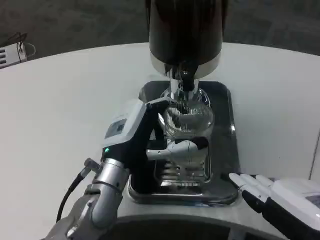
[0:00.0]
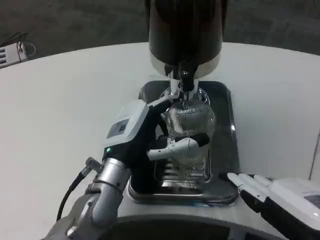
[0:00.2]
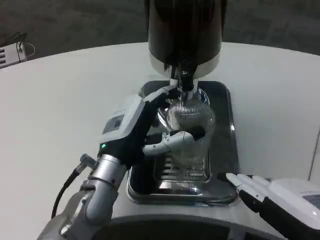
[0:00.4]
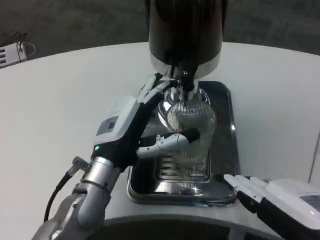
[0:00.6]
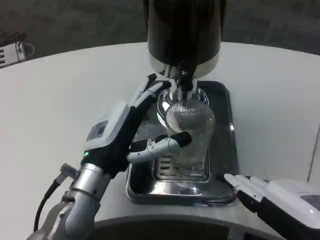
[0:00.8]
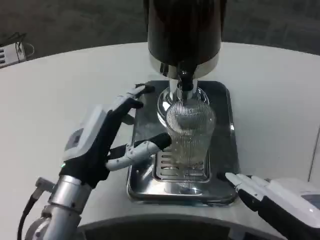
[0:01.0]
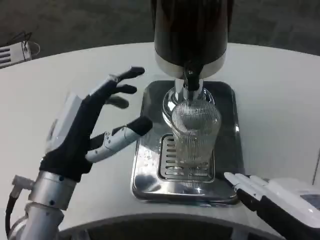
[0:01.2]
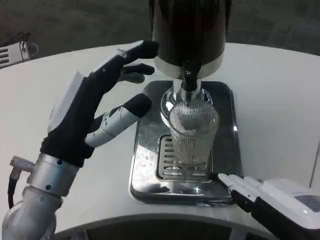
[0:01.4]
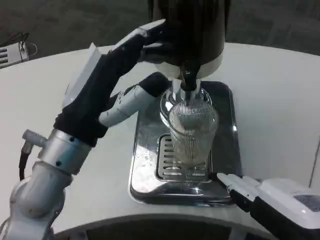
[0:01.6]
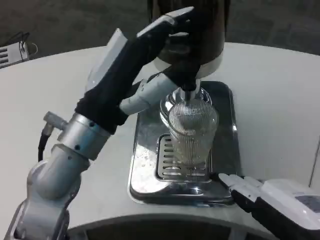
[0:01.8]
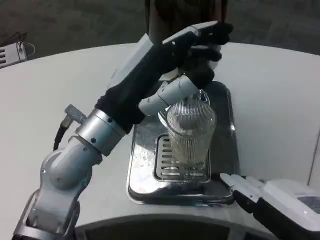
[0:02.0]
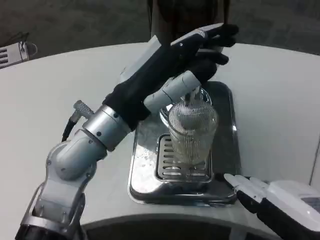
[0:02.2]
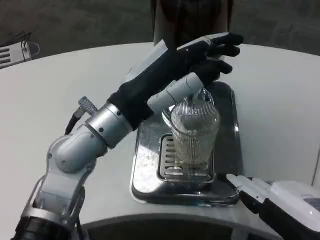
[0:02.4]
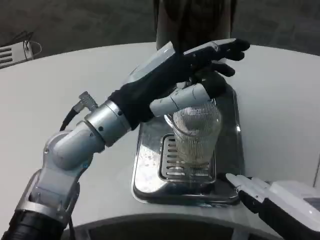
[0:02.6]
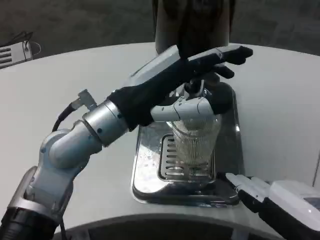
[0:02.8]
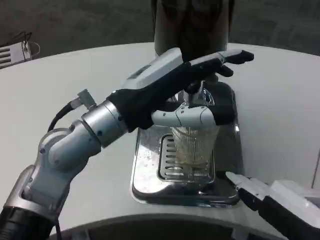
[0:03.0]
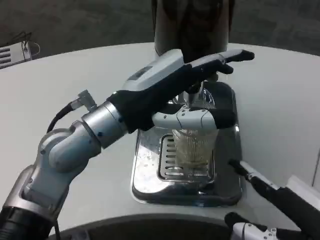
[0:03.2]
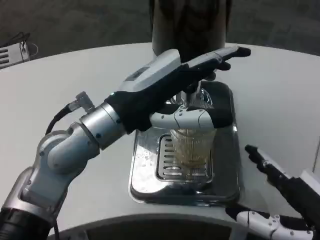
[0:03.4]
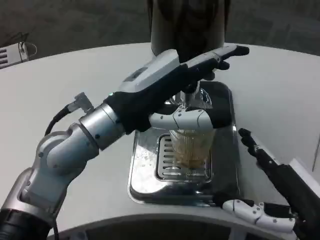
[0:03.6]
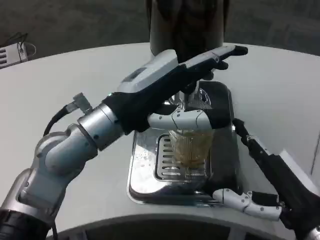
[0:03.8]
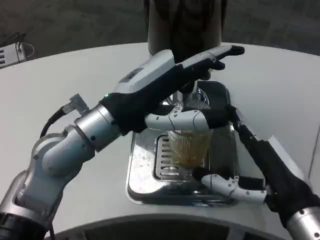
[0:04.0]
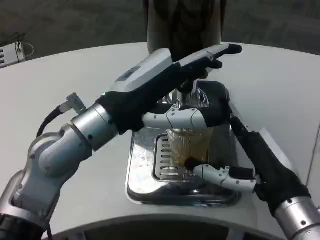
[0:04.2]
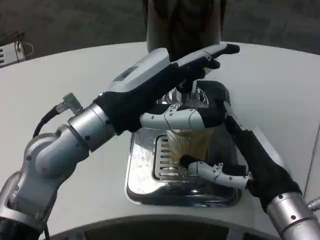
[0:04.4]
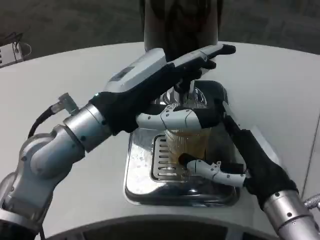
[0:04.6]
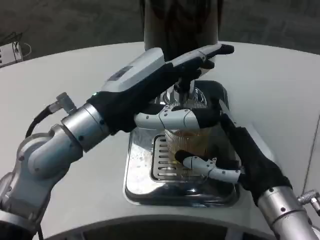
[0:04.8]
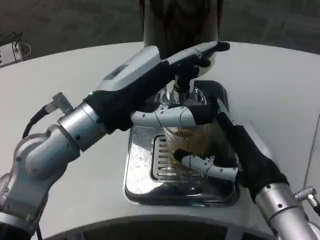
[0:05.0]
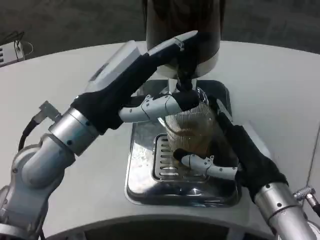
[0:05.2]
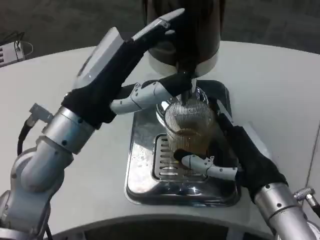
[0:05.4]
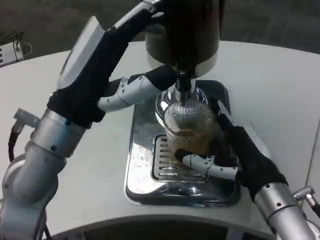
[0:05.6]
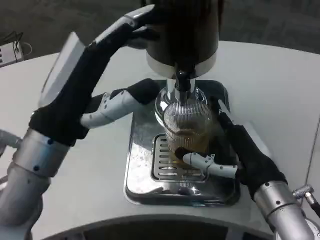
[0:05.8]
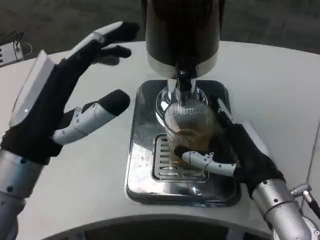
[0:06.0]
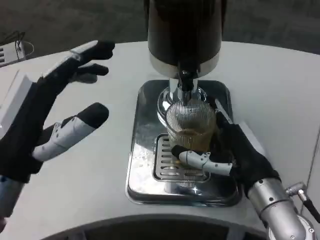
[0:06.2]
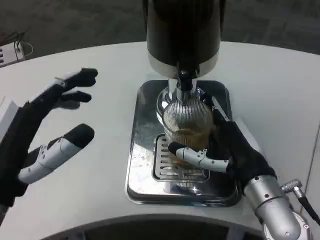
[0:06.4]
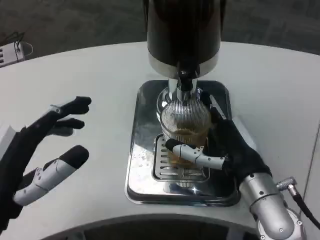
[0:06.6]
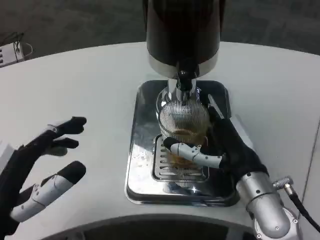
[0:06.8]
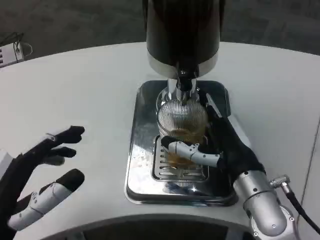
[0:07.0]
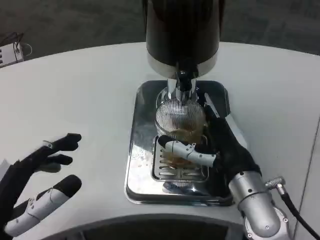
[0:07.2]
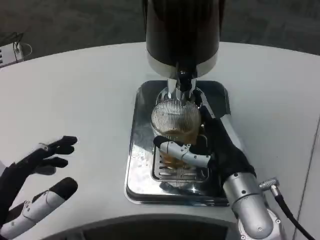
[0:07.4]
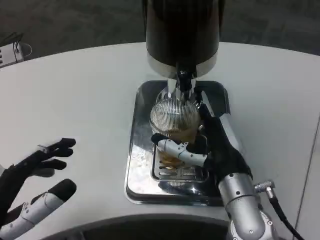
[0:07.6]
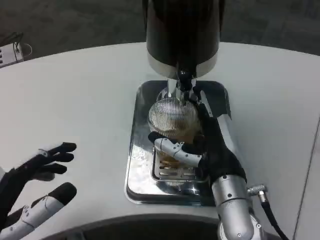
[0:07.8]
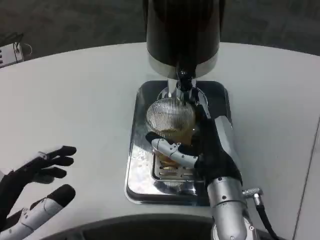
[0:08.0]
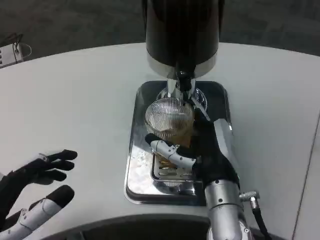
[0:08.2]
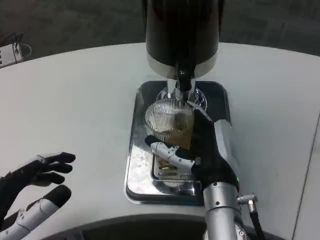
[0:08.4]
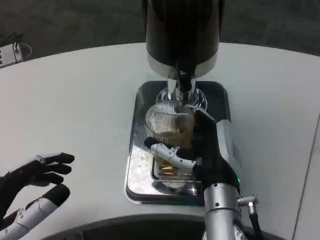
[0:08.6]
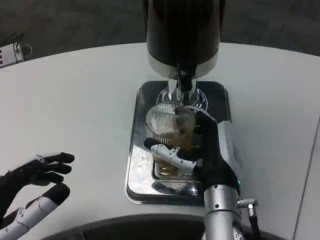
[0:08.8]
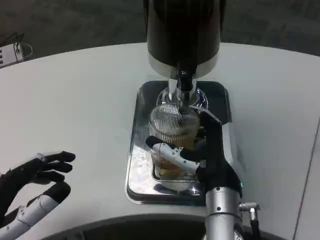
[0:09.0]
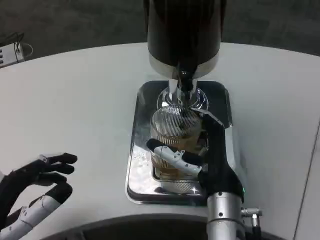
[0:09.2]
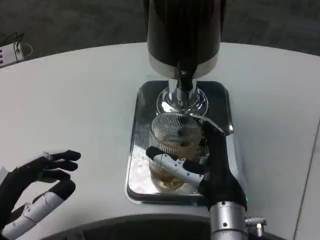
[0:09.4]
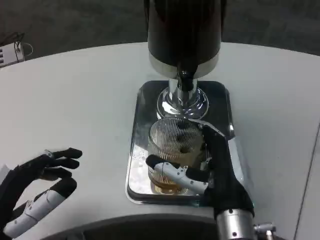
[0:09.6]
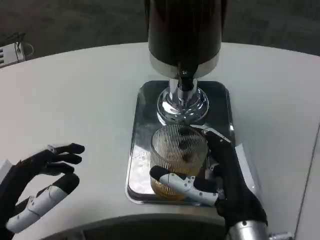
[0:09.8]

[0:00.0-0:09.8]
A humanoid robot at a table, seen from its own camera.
Task of the whole recording: Grasp the cup under the faucet to collect the drink, then remove the cup.
0:00.0 to 0:01.4: The left hand travels backward, upward and to the left by approximately 10 cm.
0:01.4 to 0:02.8: The left hand is displaced upward by approximately 5 cm.
0:02.8 to 0:04.2: The right hand goes approximately 10 cm forward.
0:05.6 to 0:07.0: The left hand travels backward, downward and to the left by some 15 cm.
0:07.0 to 0:08.4: The right hand moves to the left, some 5 cm.
0:08.4 to 0:09.8: The right hand is displaced backward by approximately 5 cm.

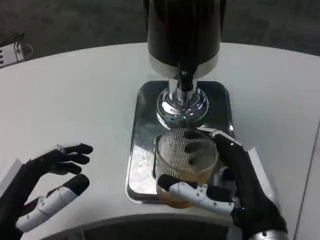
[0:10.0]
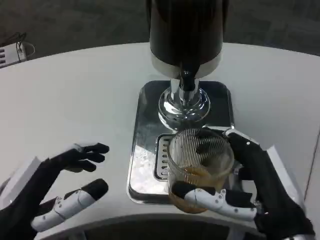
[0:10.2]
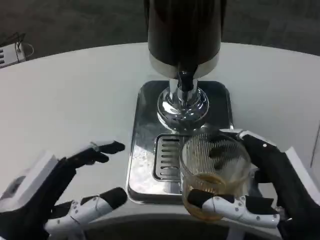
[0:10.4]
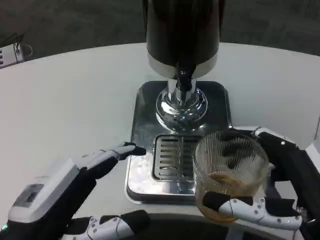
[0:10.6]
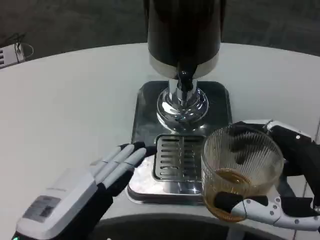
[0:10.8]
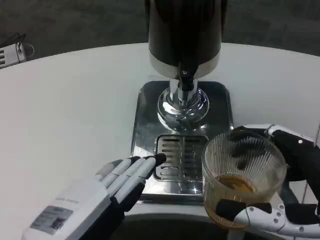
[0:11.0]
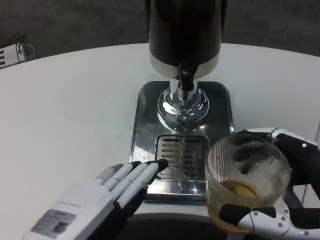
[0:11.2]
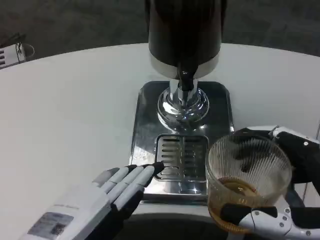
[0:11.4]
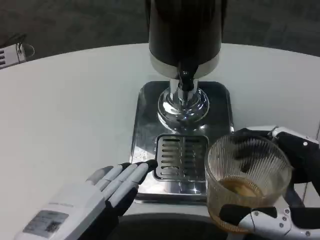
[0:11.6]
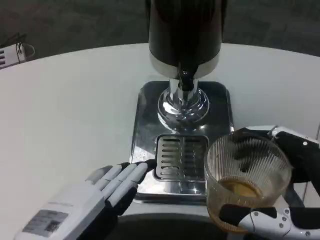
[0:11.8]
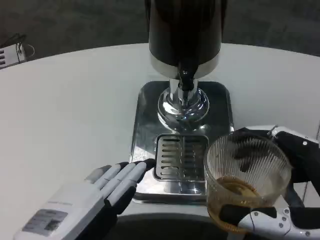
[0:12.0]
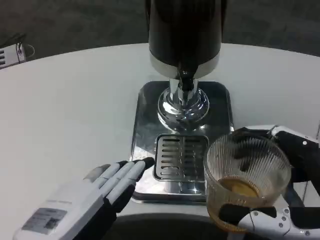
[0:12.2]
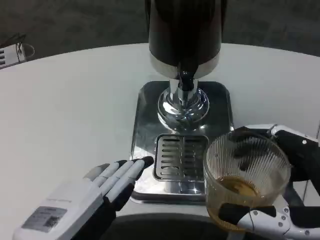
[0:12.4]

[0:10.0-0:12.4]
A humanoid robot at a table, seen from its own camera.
Task of the whole recording: Grasp the cup under the faucet to collect the drink, then remove the cup.
0:10.0 to 0:11.2: The hands both shift to the right and backward by roughly 10 cm.
0:11.2 to 0:12.4: The two hands keep their place.

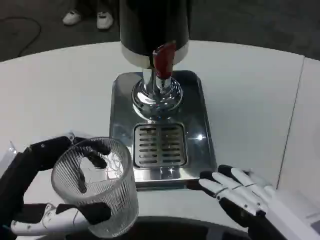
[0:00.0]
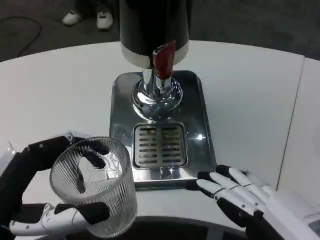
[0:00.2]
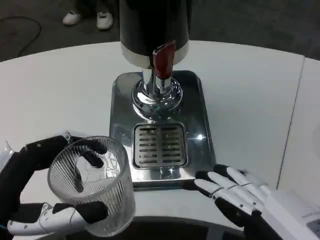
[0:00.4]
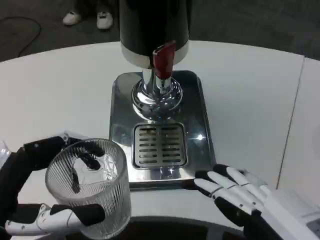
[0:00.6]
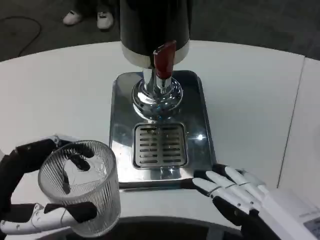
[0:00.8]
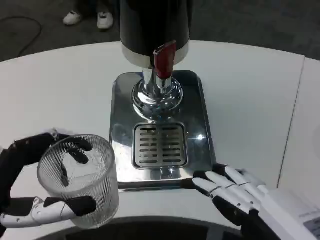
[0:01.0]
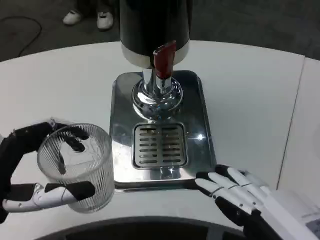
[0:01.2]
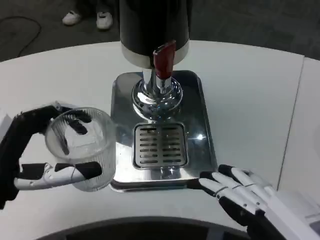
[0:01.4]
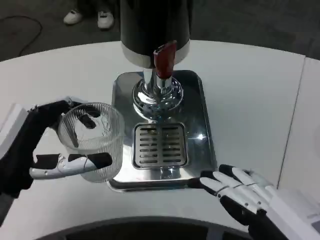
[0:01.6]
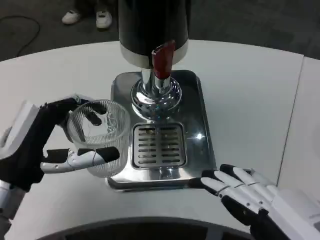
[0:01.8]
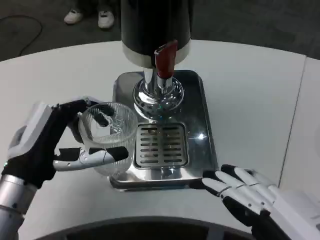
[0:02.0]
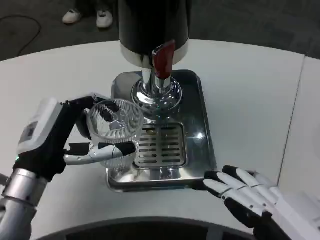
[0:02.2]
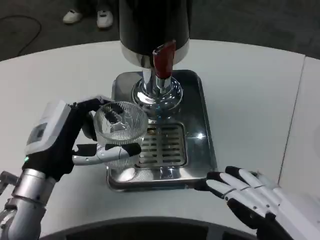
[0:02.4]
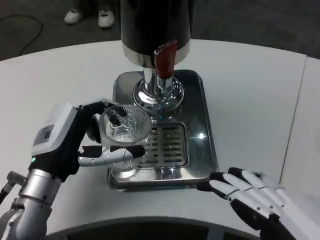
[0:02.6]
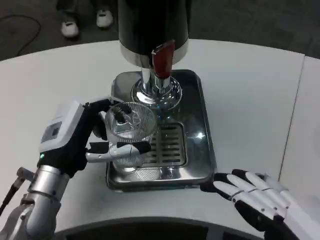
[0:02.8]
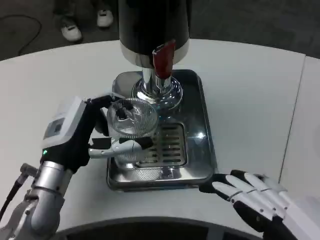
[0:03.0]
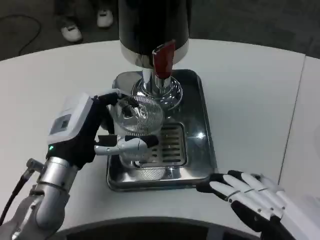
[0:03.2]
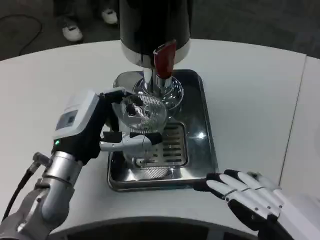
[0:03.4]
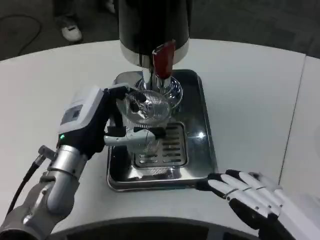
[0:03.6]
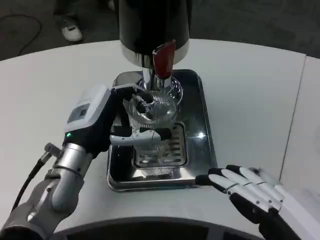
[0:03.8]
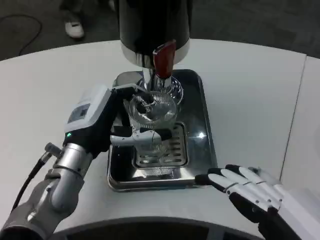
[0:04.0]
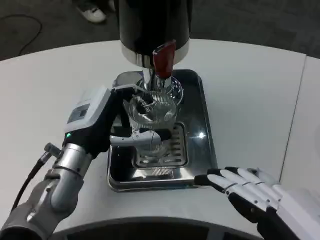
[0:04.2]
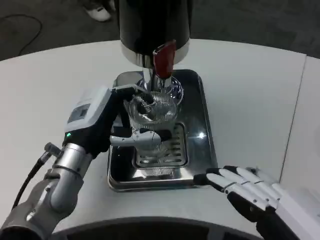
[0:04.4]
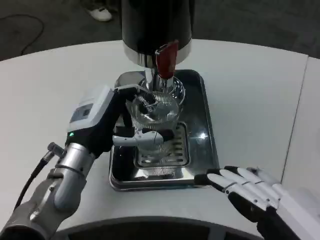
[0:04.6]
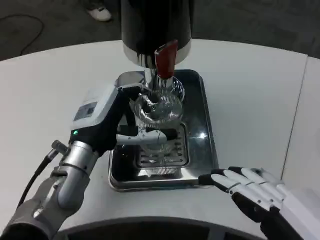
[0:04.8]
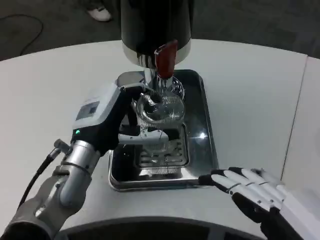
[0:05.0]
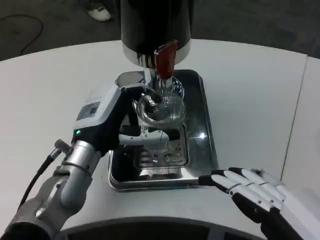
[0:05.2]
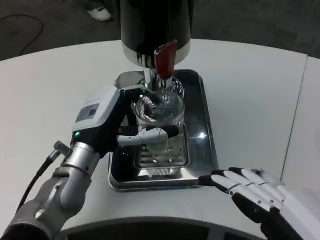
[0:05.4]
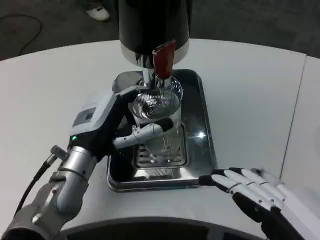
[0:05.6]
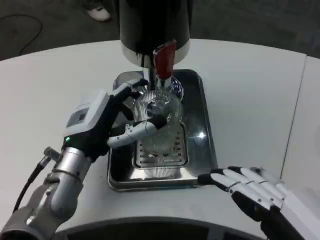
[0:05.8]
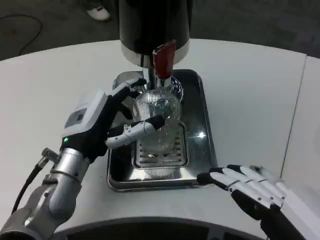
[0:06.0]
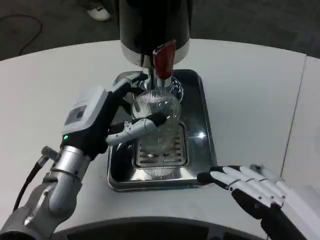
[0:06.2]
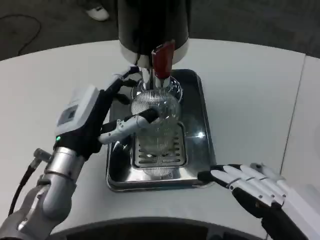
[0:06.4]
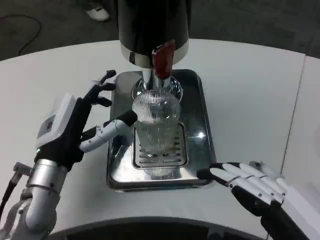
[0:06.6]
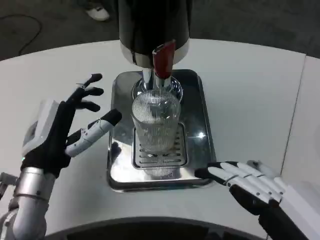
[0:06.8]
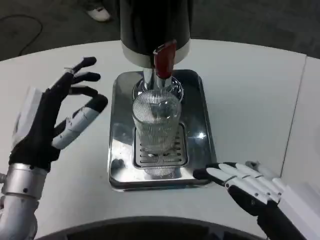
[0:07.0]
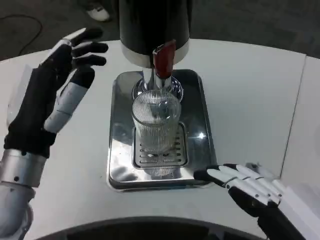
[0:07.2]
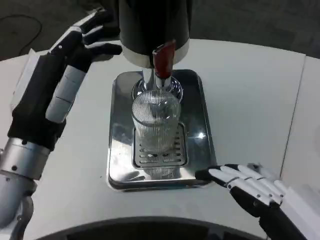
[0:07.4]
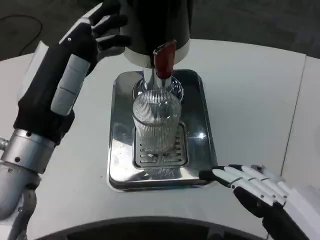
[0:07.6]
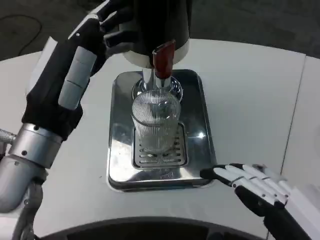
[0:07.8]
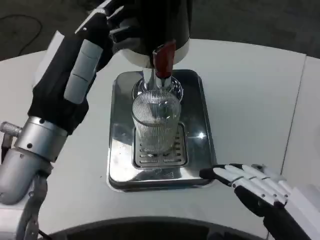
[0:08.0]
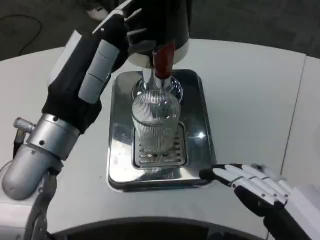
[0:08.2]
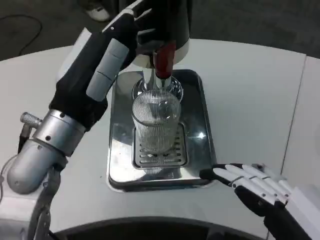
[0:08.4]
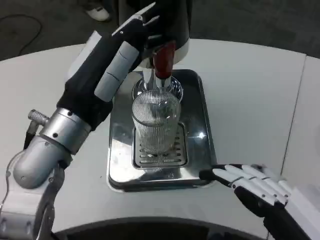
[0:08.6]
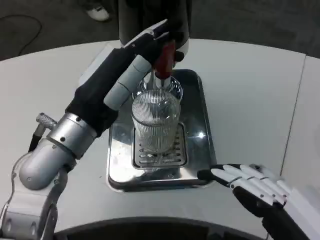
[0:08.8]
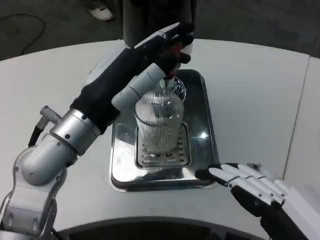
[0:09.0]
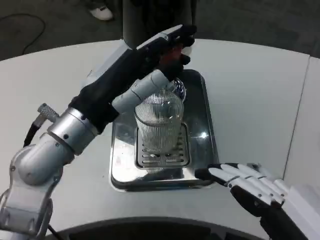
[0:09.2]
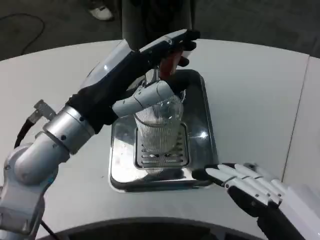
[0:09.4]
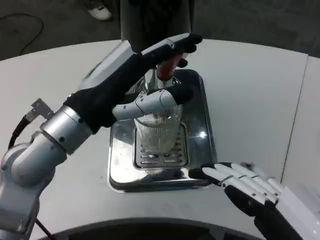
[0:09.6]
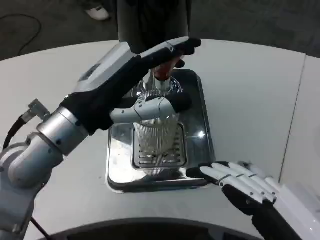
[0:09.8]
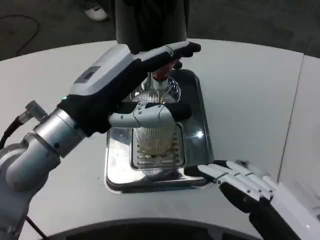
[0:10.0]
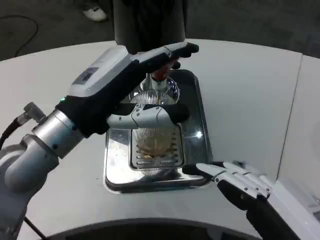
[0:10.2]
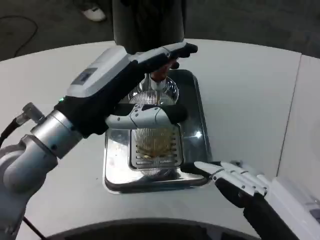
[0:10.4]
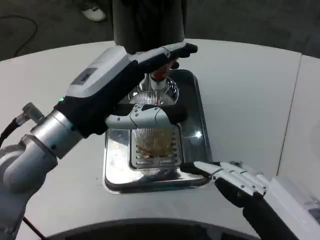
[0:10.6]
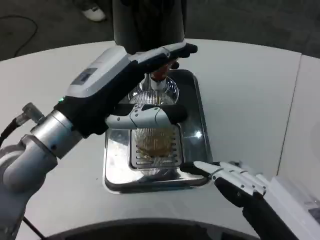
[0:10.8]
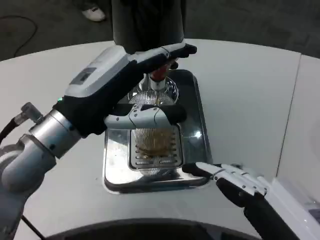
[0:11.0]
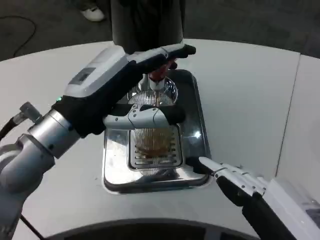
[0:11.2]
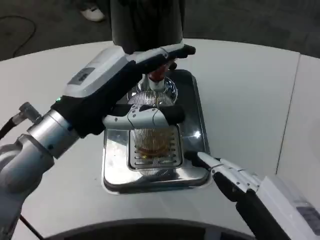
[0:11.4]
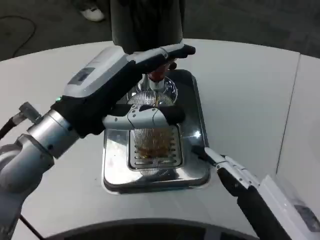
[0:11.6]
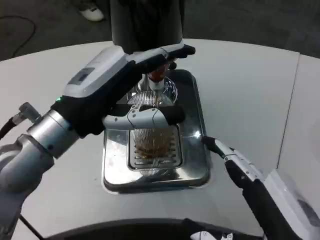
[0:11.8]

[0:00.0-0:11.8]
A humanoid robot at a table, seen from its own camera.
Task of the whole recording: Grasp the cup under the faucet to collect the drink, then remove the cup.
0:00.0 to 0:01.4: The left hand is displaced forward by approximately 5 cm.
0:01.4 to 0:03.0: The left hand moves forward and to the right, approximately 10 cm.
0:04.4 to 0:06.0: The two hands keep their place.
0:06.0 to 0:07.4: The left hand goes some 10 cm upward and backward.
0:07.4 to 0:08.8: The left hand shifts by some 5 cm.
0:10.4 to 0:11.8: The right hand moves about 5 cm.
